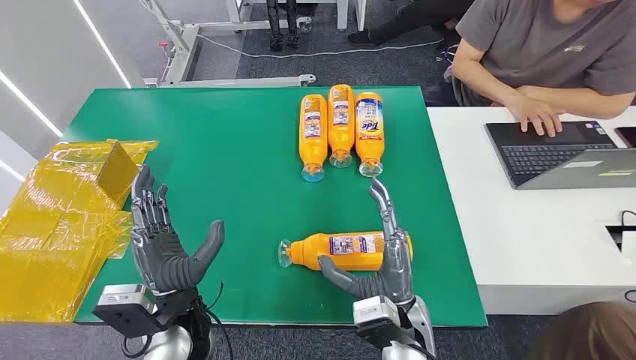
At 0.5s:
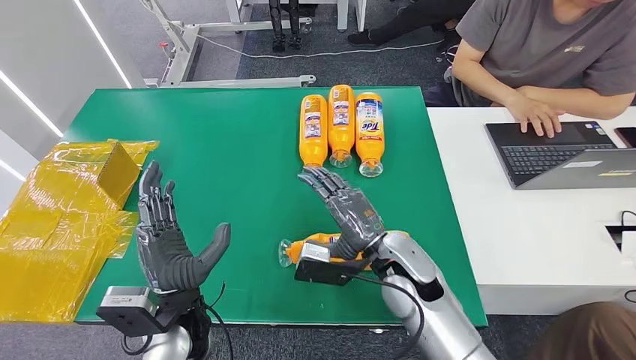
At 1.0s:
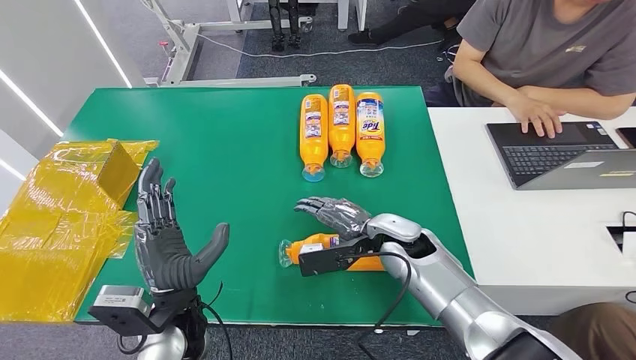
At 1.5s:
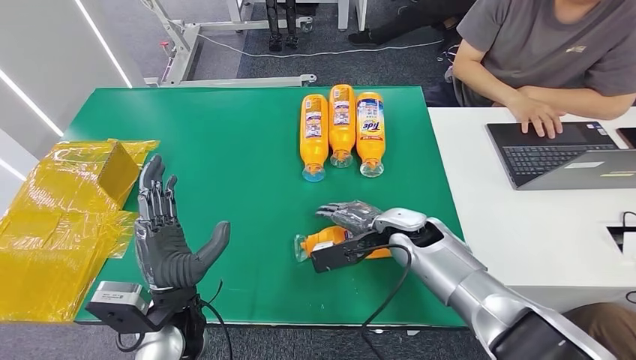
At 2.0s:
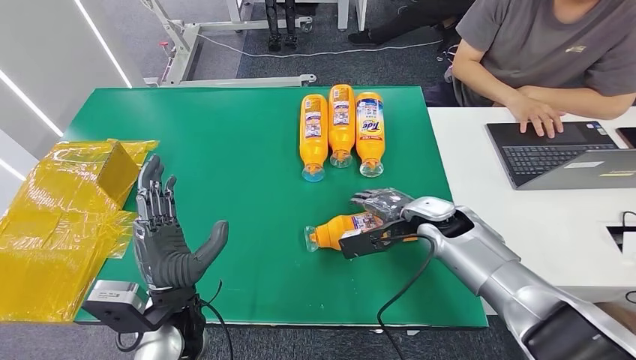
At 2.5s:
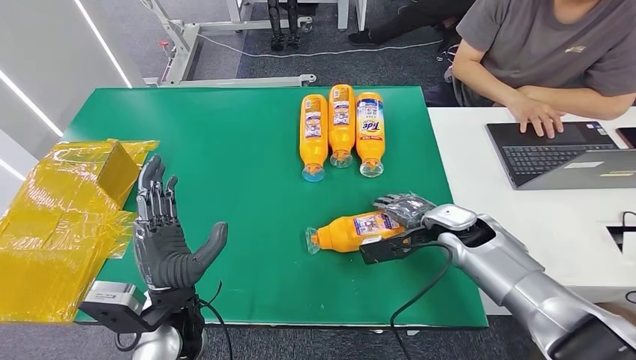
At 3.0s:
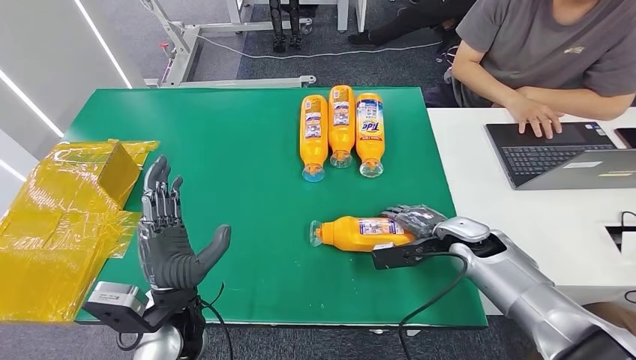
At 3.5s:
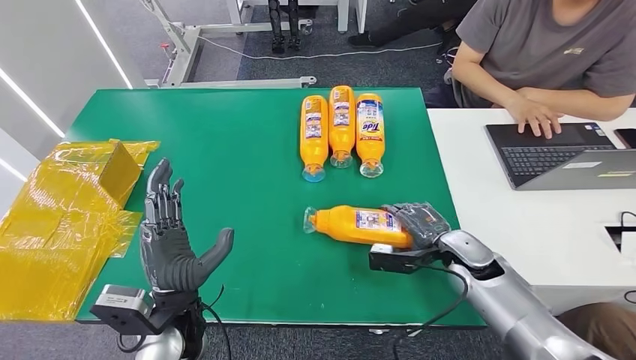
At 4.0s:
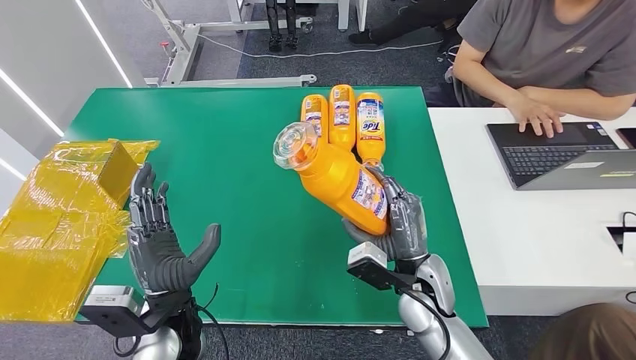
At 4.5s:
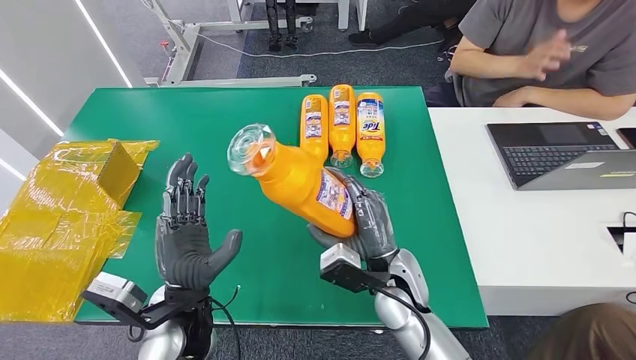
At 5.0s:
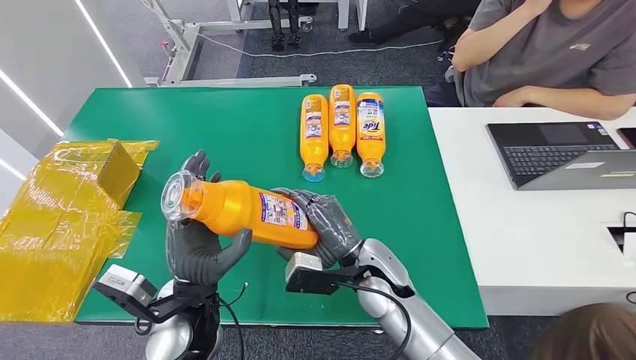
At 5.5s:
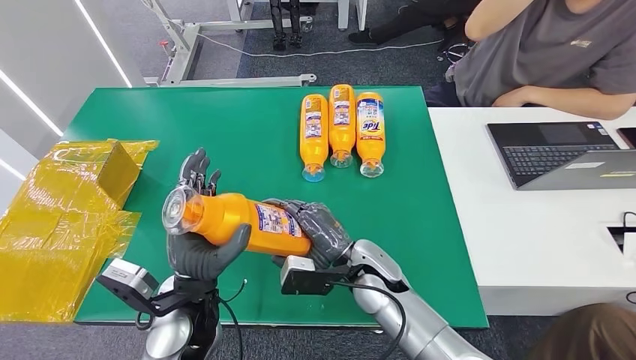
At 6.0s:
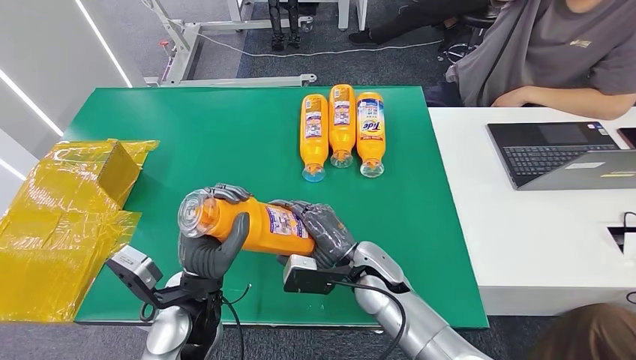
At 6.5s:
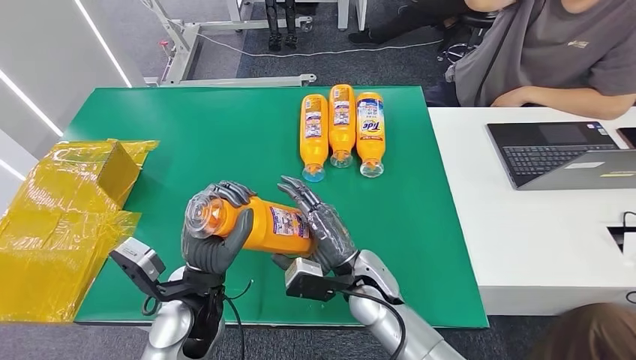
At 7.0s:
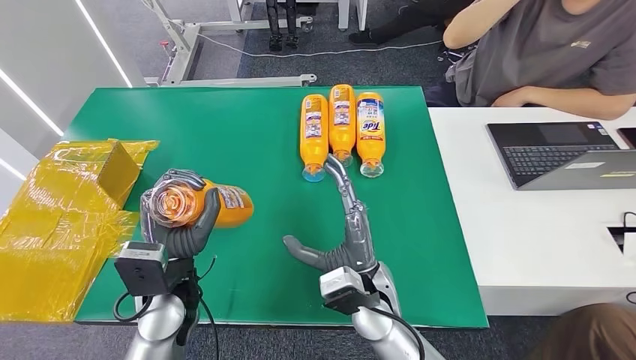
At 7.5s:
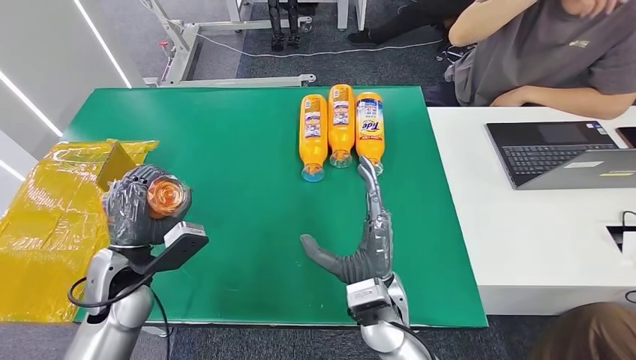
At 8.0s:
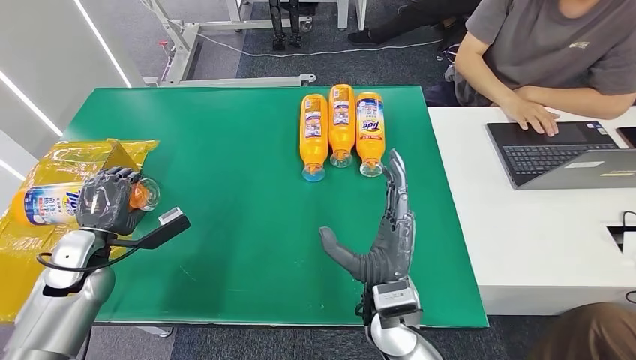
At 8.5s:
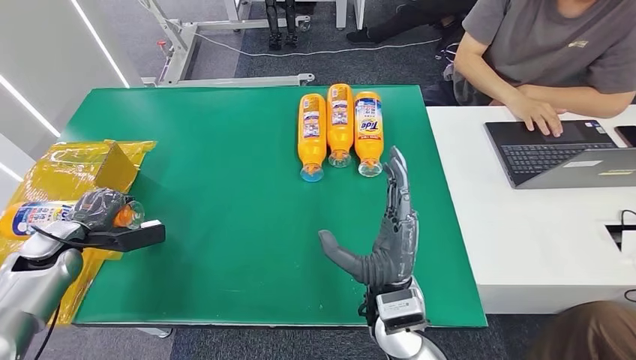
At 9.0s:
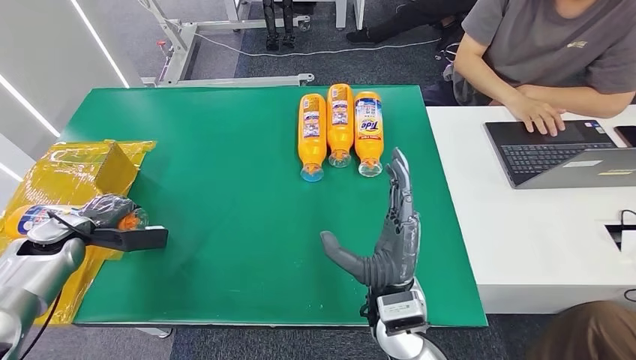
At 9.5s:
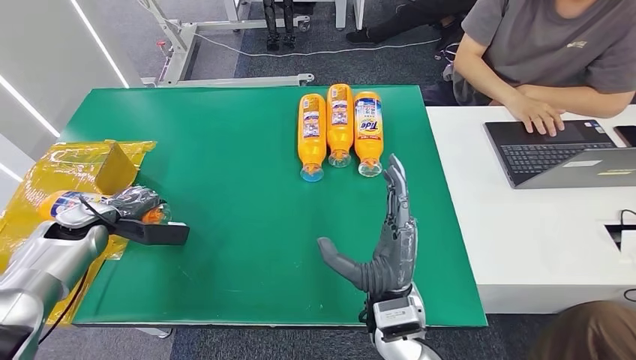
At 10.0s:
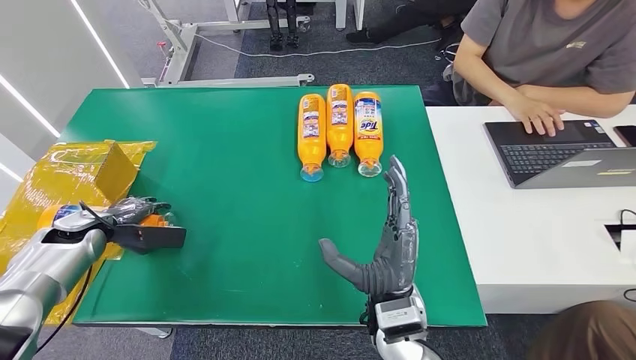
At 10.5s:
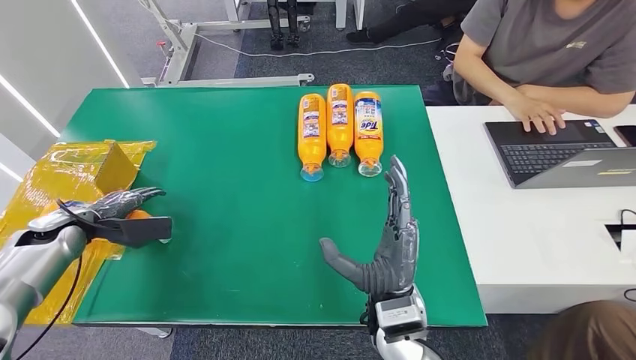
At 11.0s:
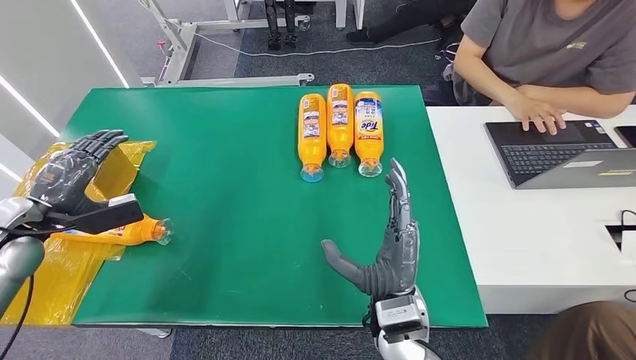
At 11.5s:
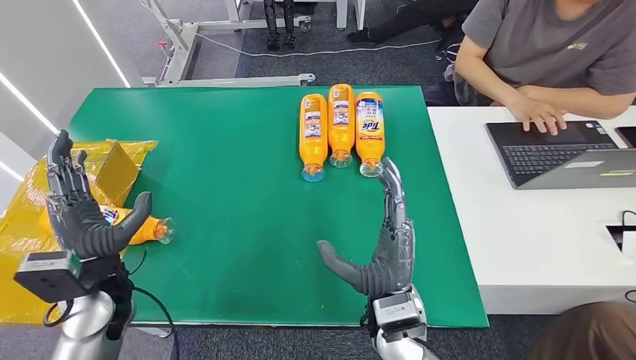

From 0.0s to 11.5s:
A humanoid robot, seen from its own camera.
Step, from 0.0s to 7.0s: Pick up the bottle from the table.
Step, from 7.5s to 11.5s: Turn the bottle to the front side.
From 2.0s to 4.0s: The right hand heads backward, covering approximately 10 cm.
From 4.0s to 6.0s: The right hand goes about 10 cm to the left.
From 6.0s to 7.5s: The right hand heads backward, covering some 5 cm. The left hand moves to the left, about 10 cm.
From 9.5s to 11.5s: The left hand goes some 20 cm to the right and backward.

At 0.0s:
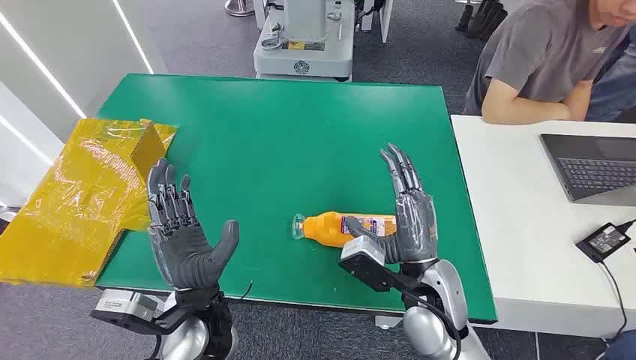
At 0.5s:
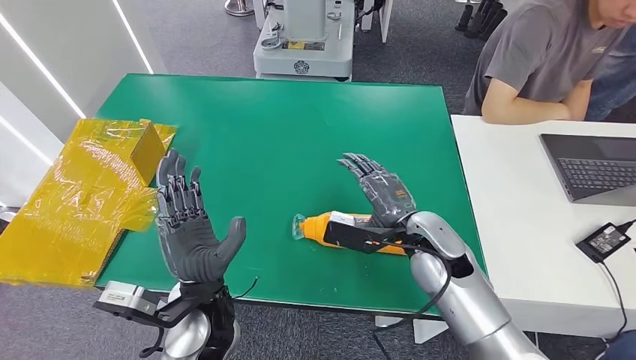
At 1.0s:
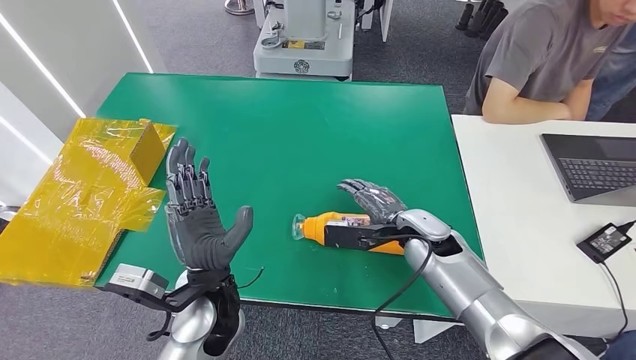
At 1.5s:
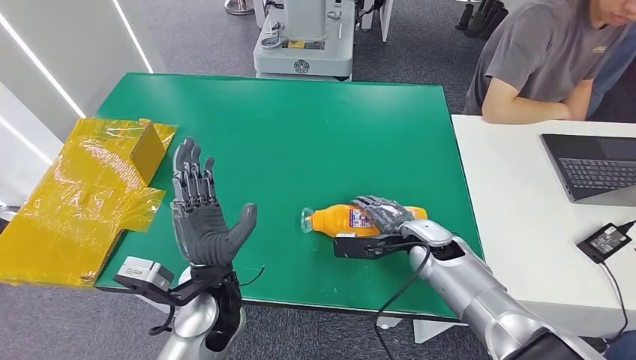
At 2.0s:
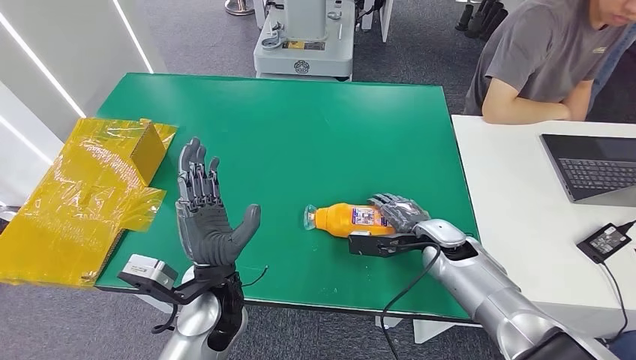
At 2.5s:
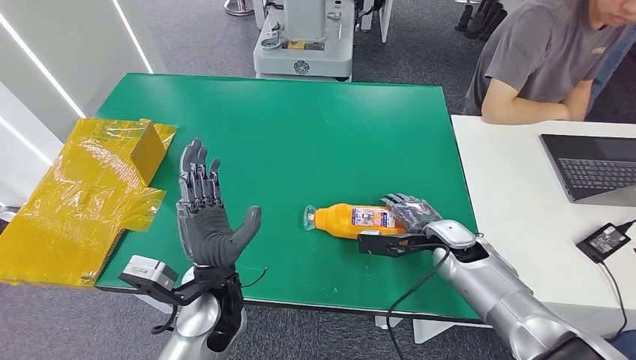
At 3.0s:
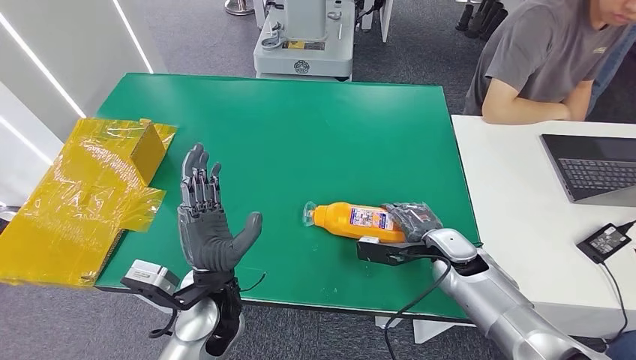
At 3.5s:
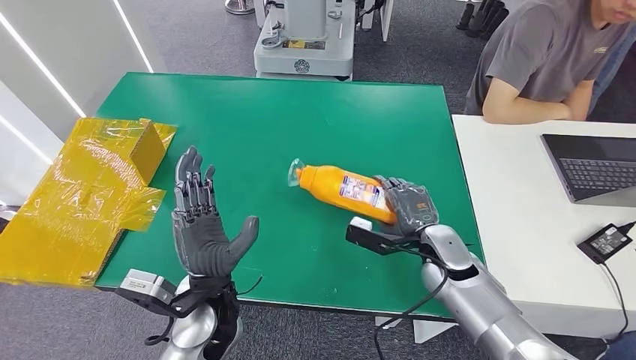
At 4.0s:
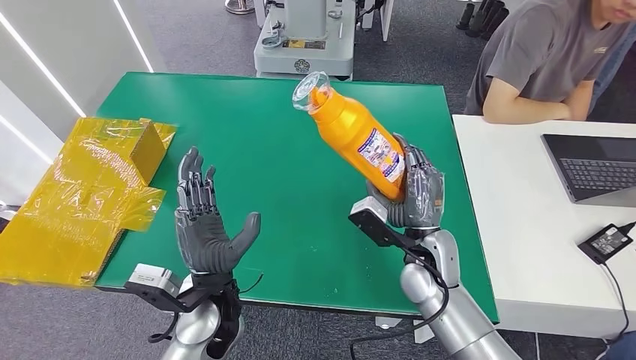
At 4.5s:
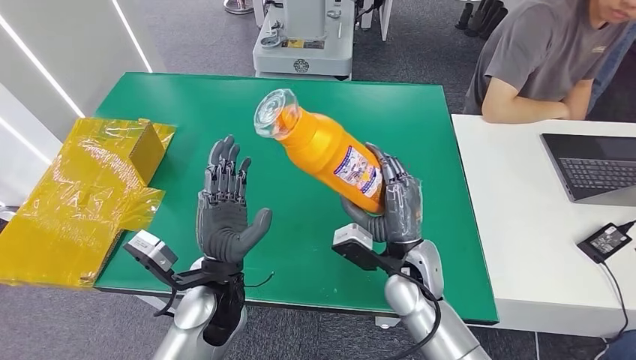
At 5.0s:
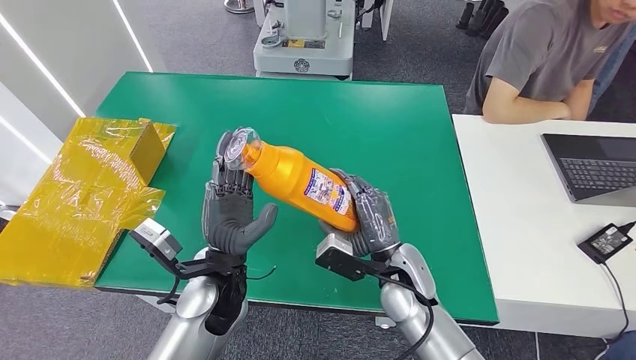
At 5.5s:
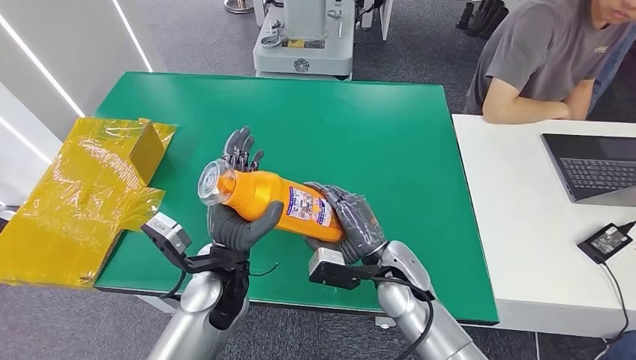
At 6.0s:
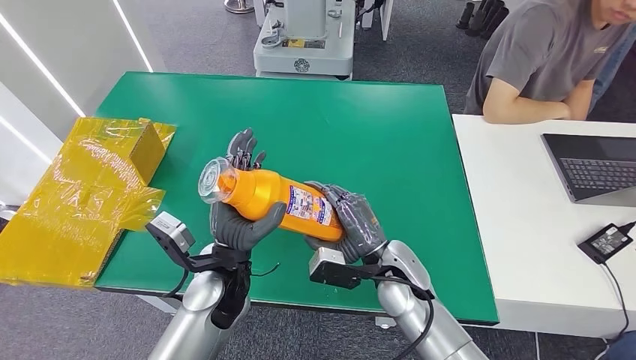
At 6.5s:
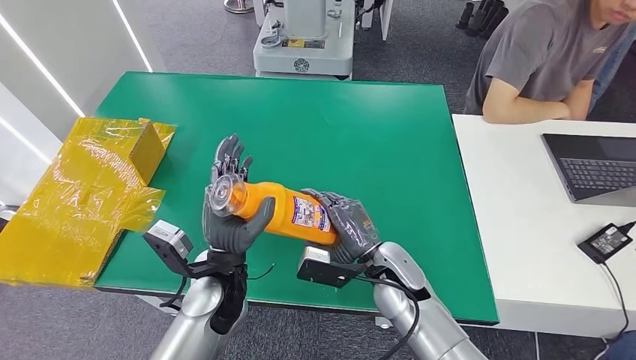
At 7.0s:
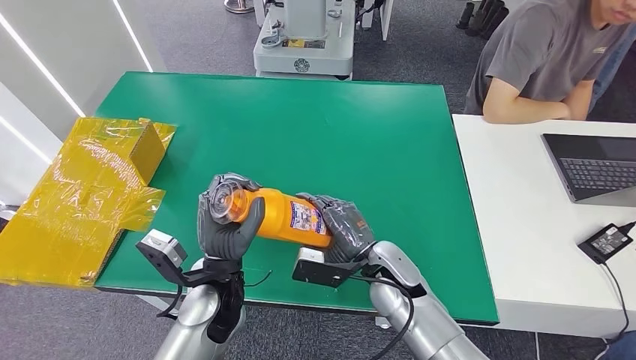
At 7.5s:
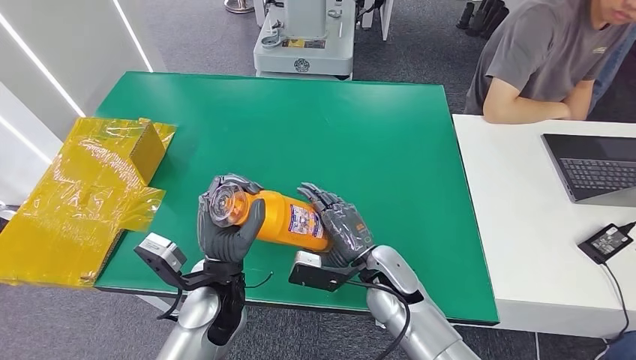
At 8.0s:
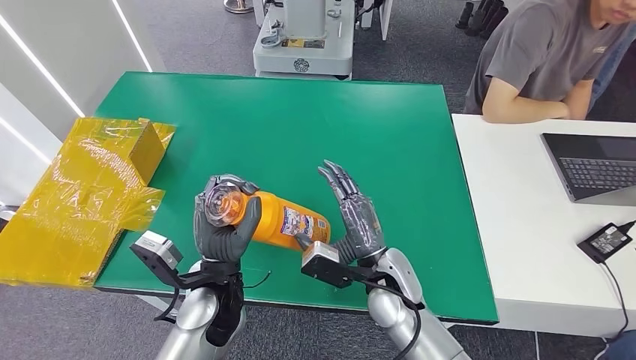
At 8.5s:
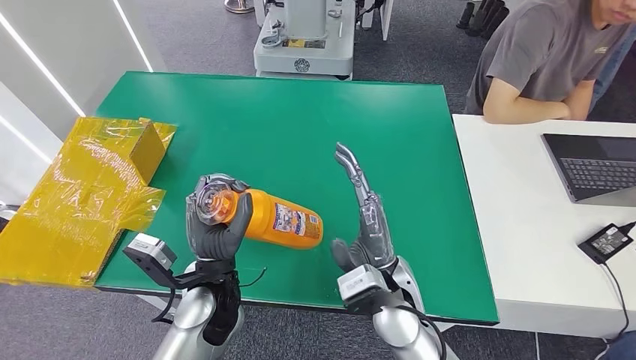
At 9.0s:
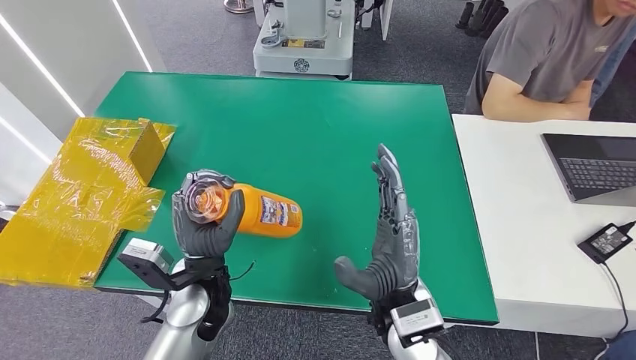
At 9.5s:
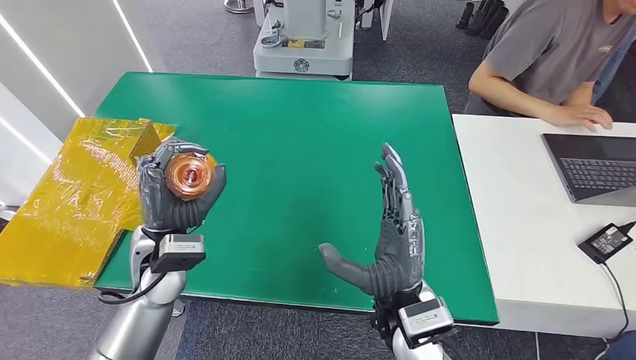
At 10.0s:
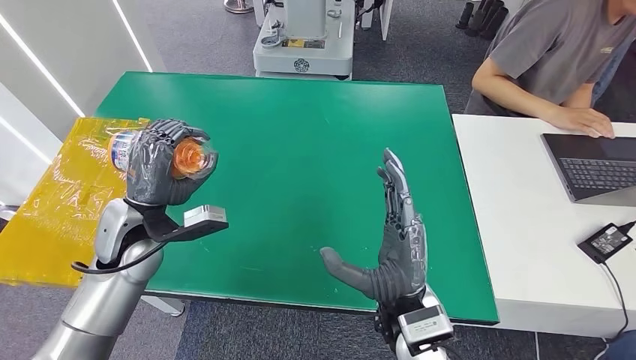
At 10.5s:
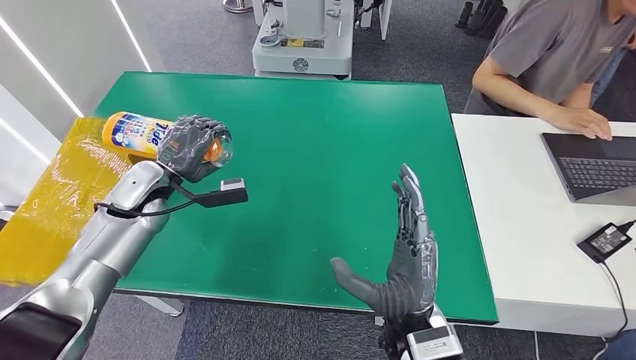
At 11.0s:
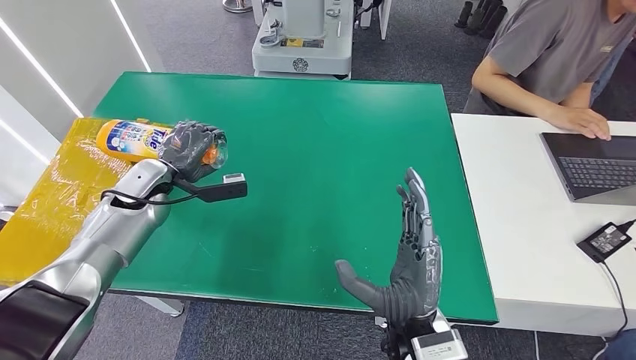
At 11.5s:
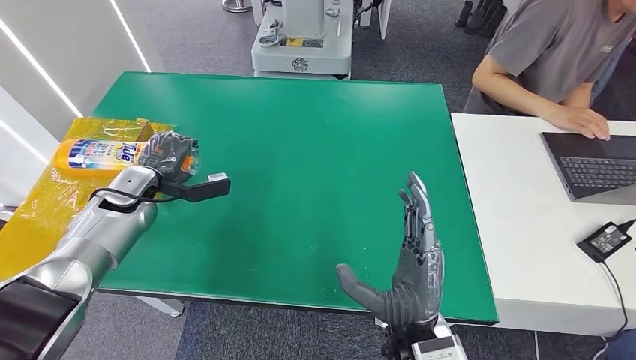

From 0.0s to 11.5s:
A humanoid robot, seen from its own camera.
Step, from 0.0s to 4.5s: Pick up the bottle from the table.
From 2.0s to 4.0s: The right hand heads to the left, covering approximately 10 cm.
From 4.0s to 6.0s: The right hand changes place by some 5 cm.
From 6.0s to 7.5s: There are only small adjustments of the hands.
From 7.5s to 9.5s: The left hand shifts about 10 cm to the left, while the right hand travels upward and backward by approximately 10 cm.
